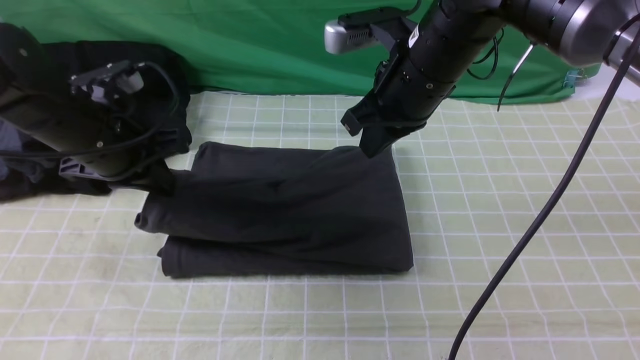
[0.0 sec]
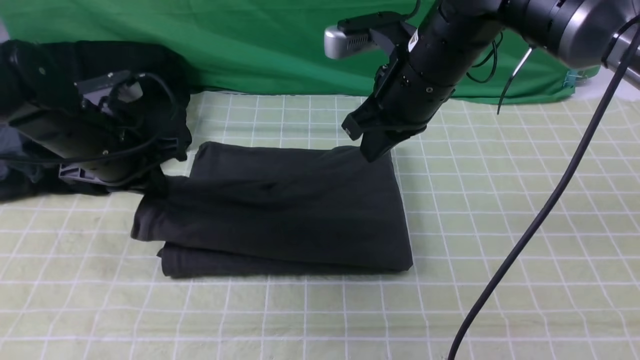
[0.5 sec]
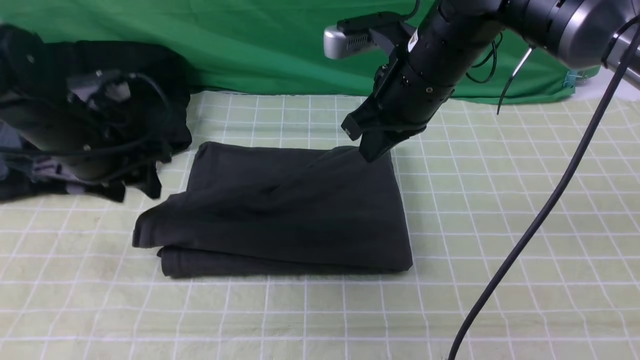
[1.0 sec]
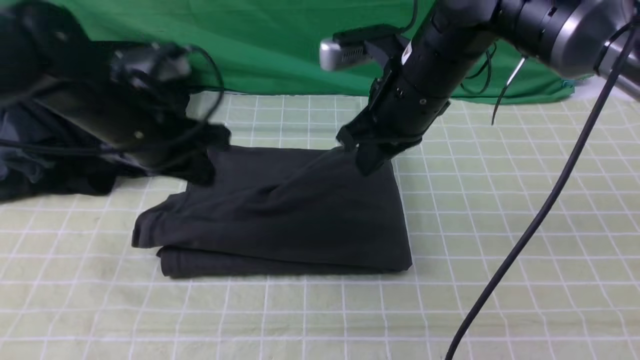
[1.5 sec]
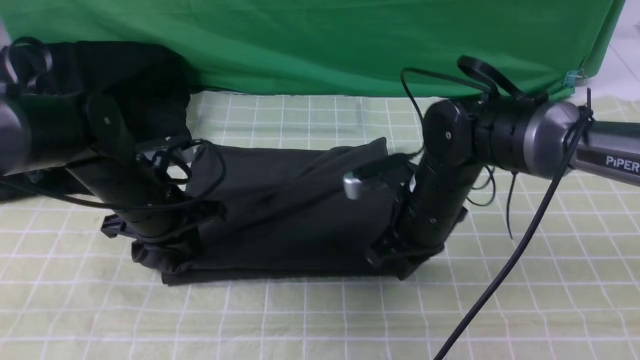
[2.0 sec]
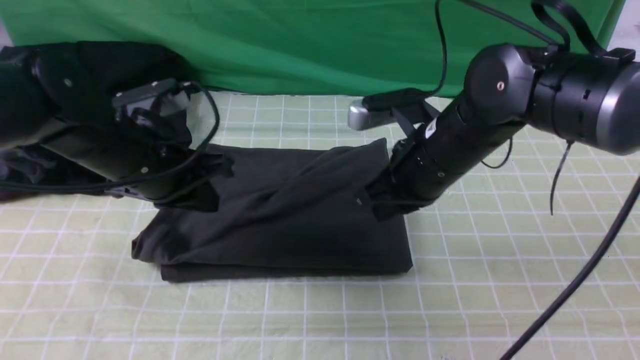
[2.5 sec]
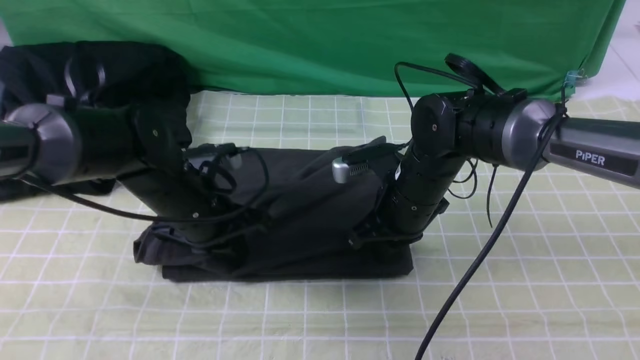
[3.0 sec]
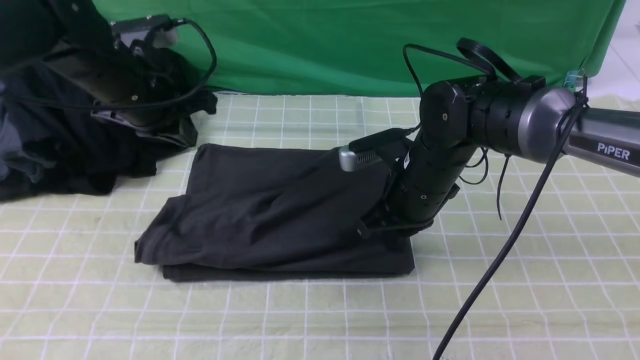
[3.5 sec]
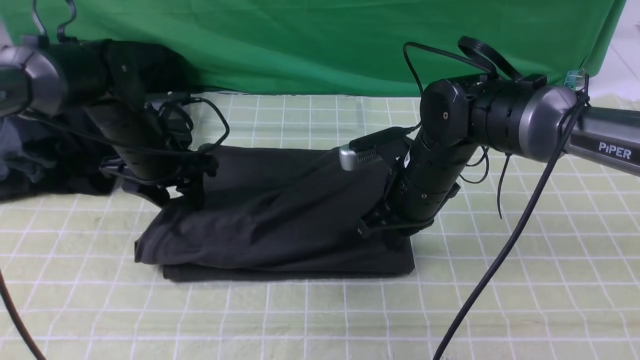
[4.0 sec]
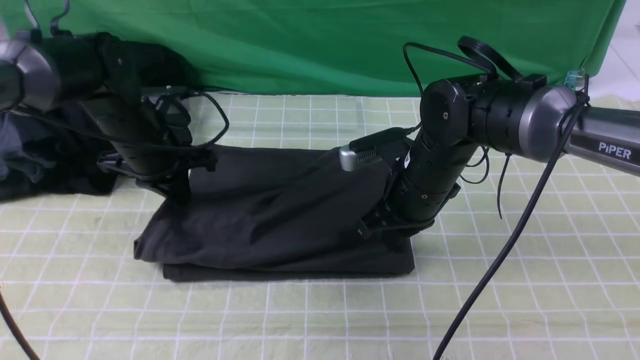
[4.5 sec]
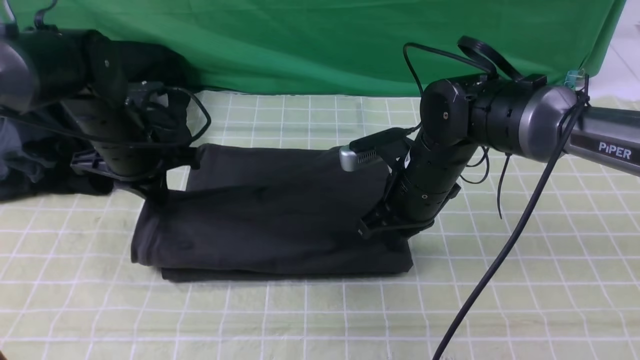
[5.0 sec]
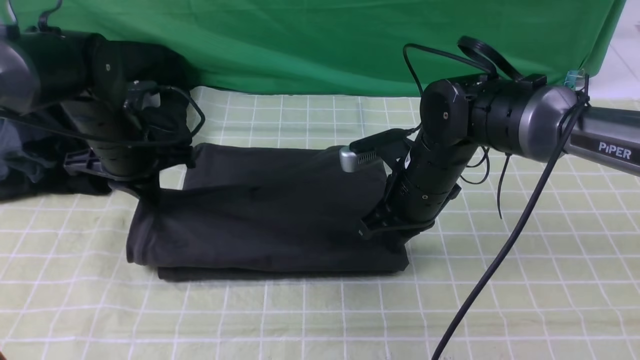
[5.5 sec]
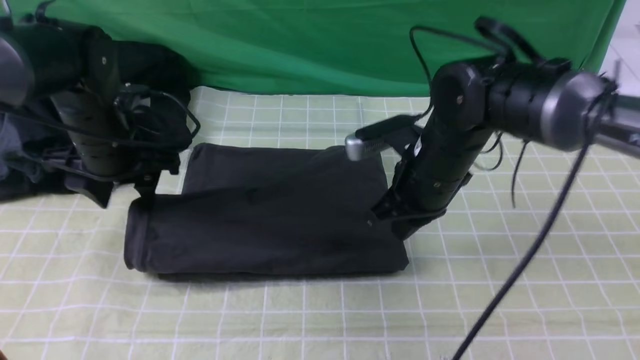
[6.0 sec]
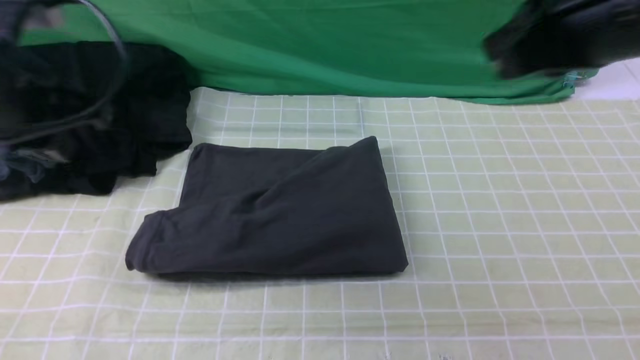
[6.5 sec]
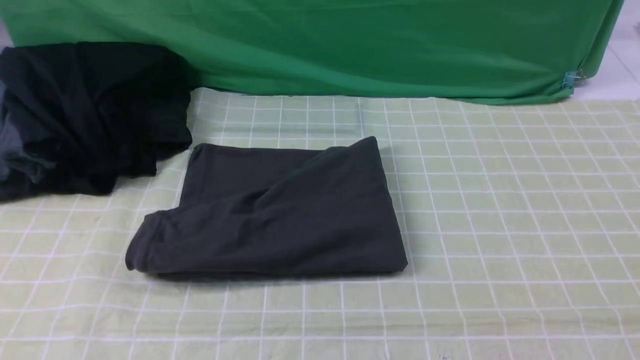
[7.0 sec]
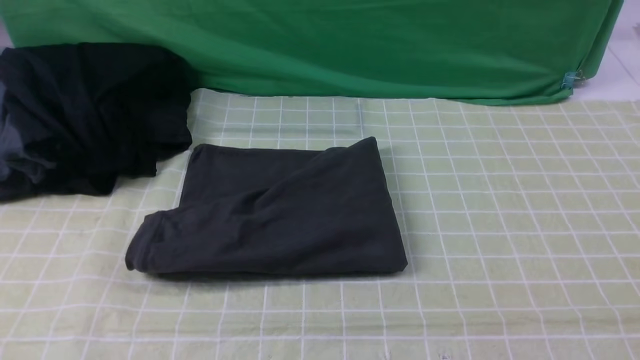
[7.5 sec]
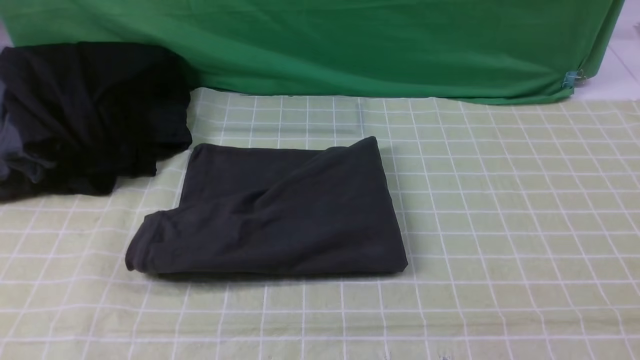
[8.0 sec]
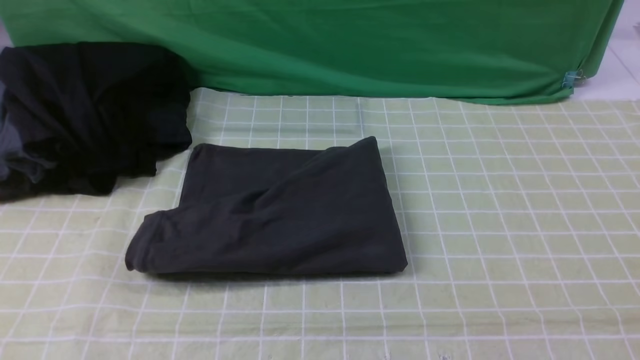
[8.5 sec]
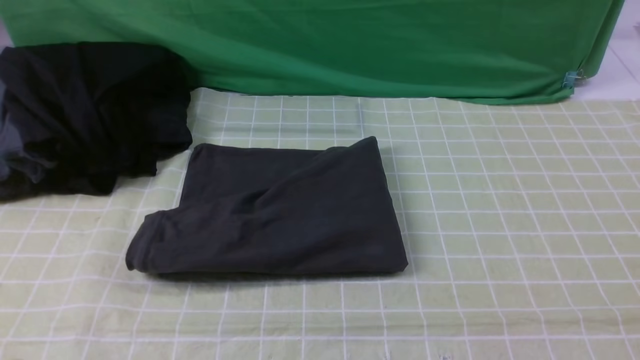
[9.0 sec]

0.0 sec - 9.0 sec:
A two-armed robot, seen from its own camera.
0.0 sec - 2.0 sec: The left gripper shifts approximately 5 cm downward, and opens and closes again, while the right gripper moves downward, roughly 15 cm.
2.0 sec - 4.5 sec: The left gripper shifts about 5 cm forward, and opens, then closes again.
4.5 sec - 7.0 sec: The left gripper heads backward, covering approximately 40 cm, and opens, then closes again; the right gripper heads backward, to the right and upward, covering roughly 40 cm.
